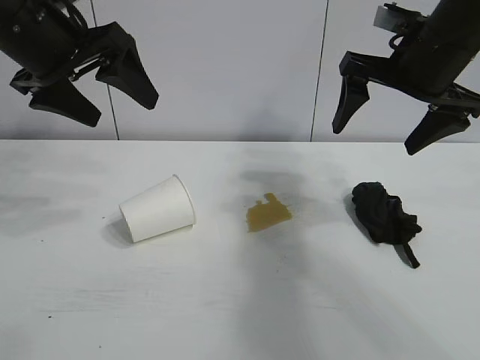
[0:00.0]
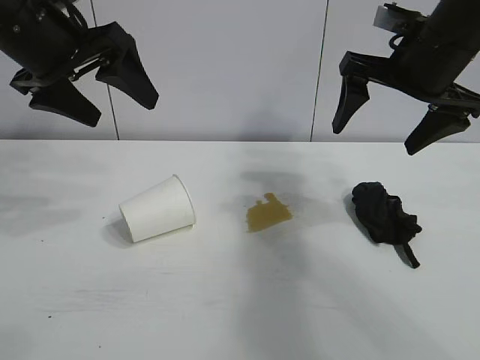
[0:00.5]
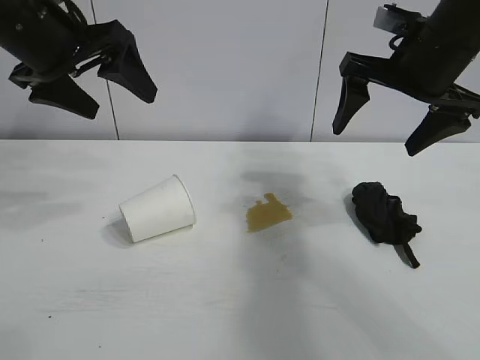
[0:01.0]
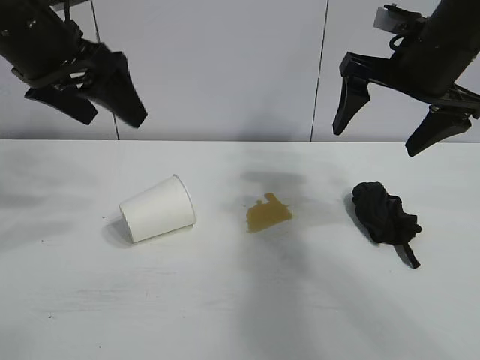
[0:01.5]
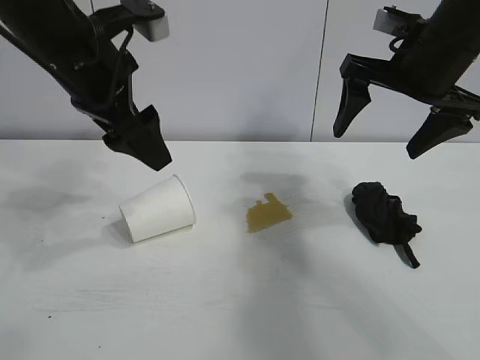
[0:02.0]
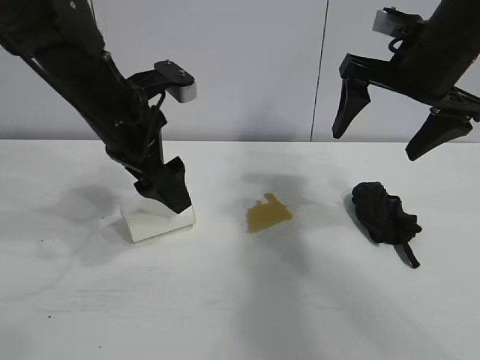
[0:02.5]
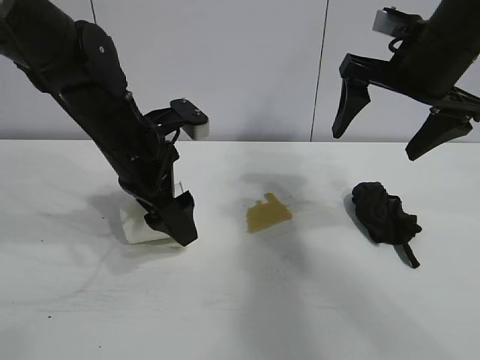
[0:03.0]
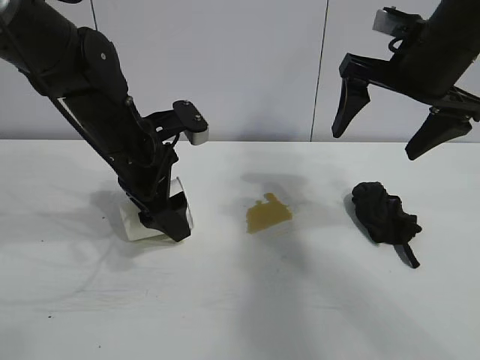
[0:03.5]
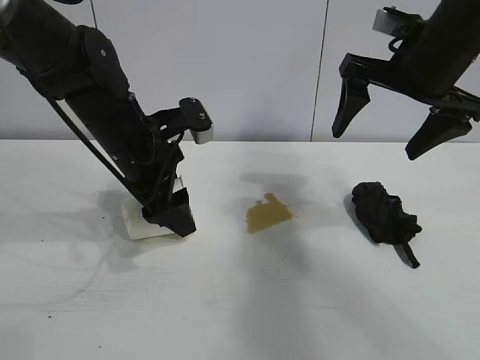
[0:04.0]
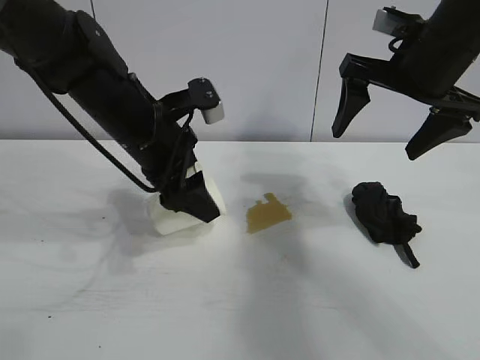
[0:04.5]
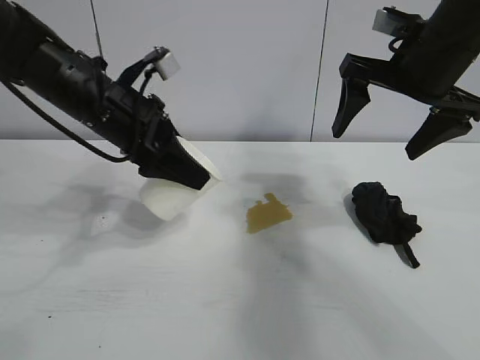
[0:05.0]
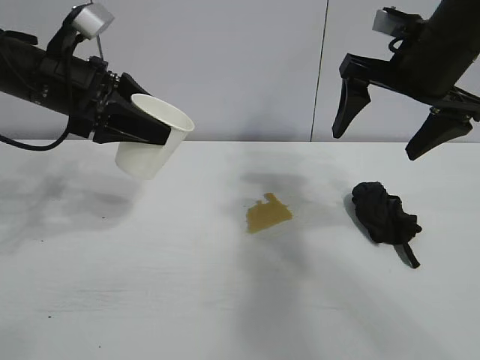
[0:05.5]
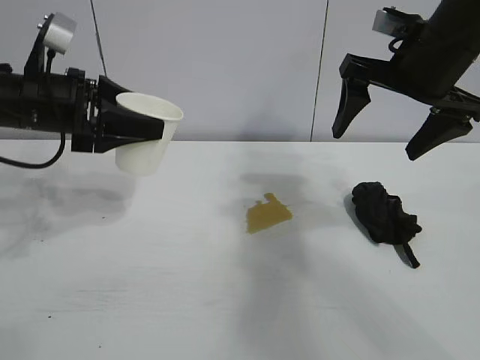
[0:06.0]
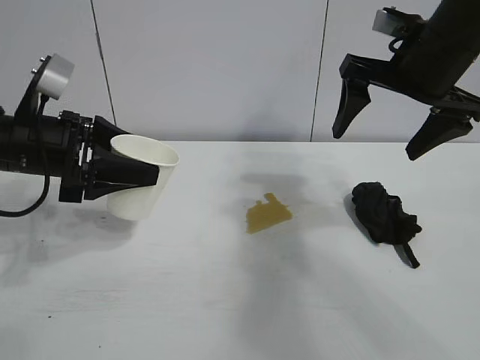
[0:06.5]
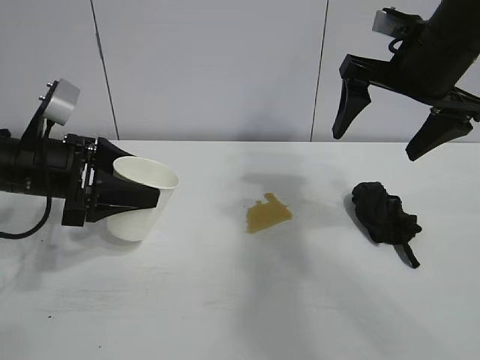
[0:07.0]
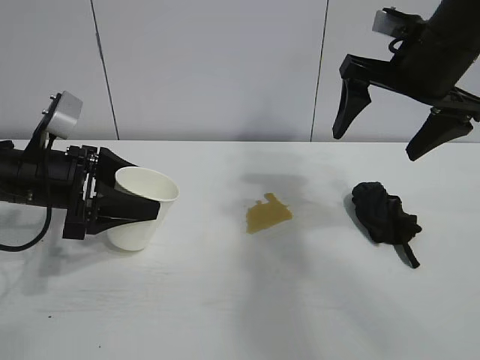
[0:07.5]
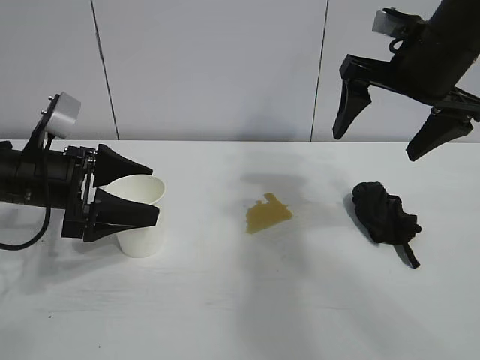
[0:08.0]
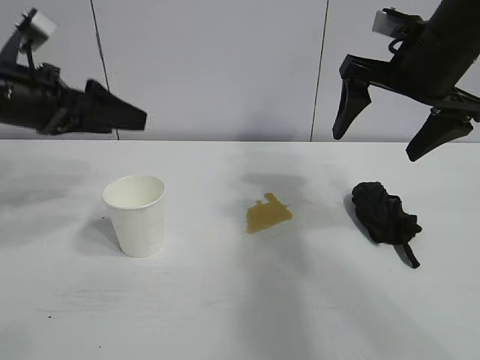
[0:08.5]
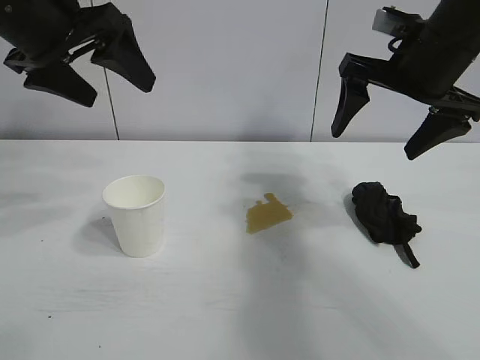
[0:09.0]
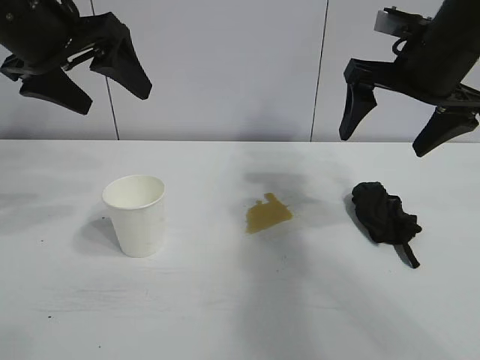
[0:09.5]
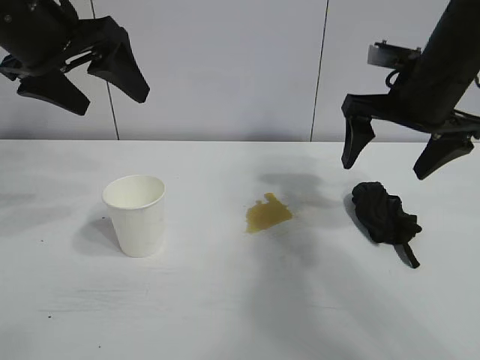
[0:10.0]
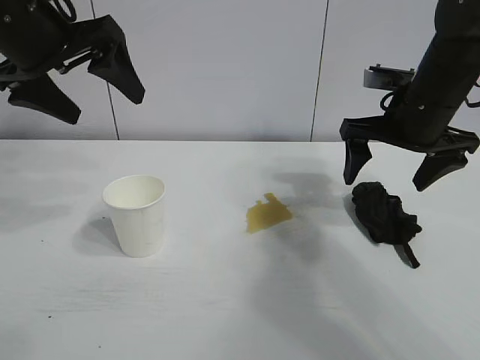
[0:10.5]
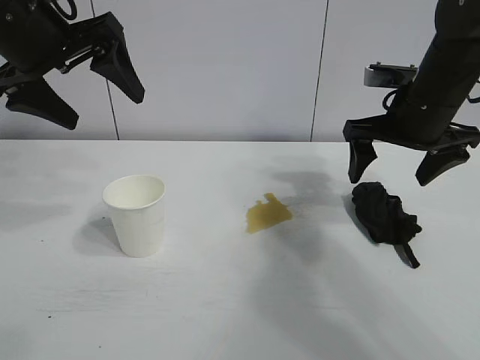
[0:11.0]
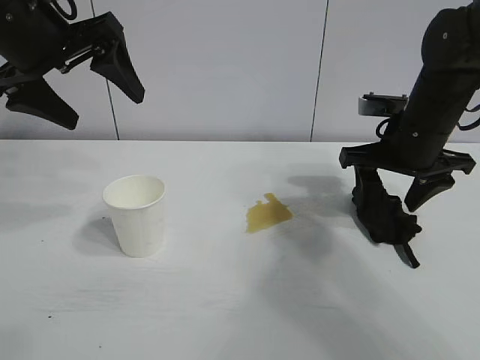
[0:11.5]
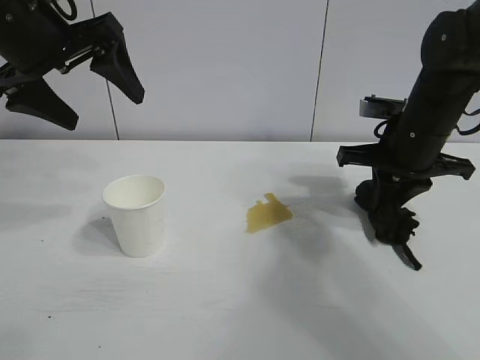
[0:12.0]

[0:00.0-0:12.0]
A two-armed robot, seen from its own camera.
Task of the whole recording: the left gripper pick up the fallen cup and place it upright, the right gripper grasp the black rag and wipe the stain on the table, the right gripper put the black rag back in its original position.
Step, 0:01.0 to 0:03.0: Grasp the paper cup with left gripper.
Step, 0:04.0 to 0:07.5: Stand the paper cup upright with left gripper.
Step, 0:08.0 to 0:11.5: Grasp the rag with right gripper.

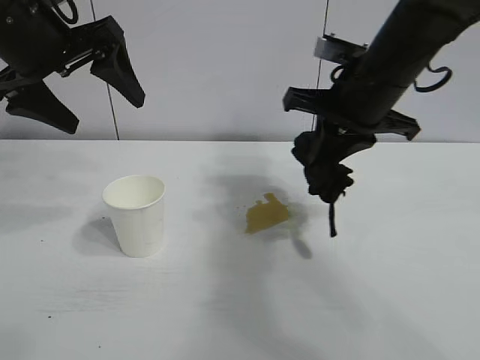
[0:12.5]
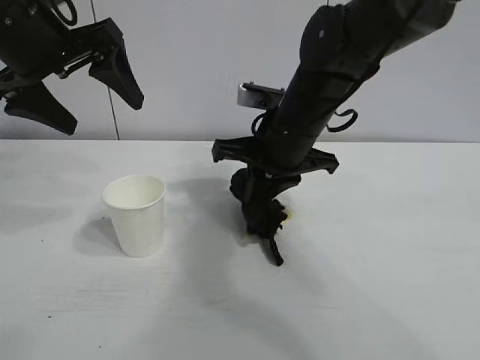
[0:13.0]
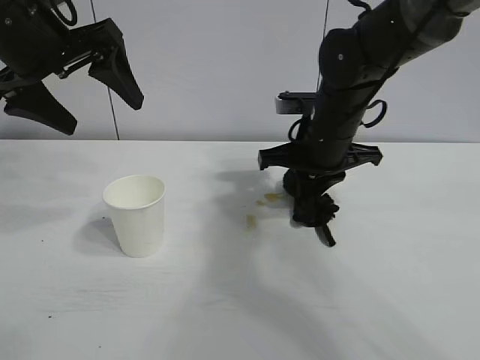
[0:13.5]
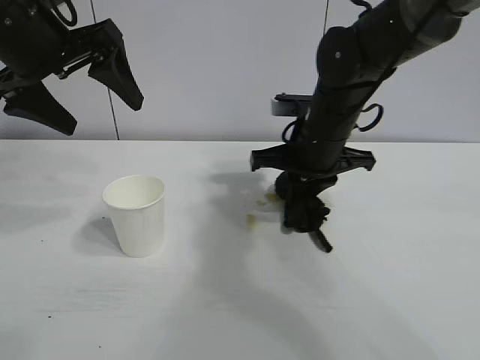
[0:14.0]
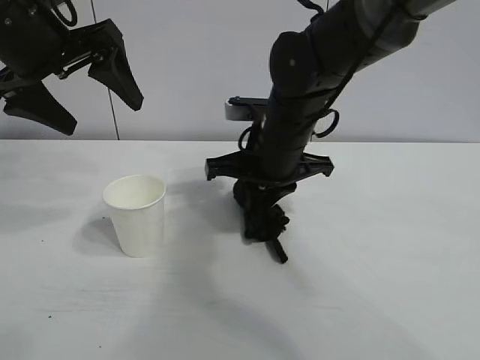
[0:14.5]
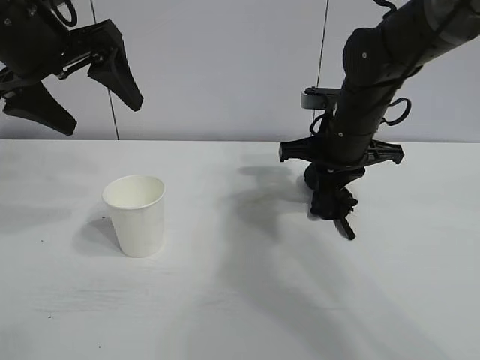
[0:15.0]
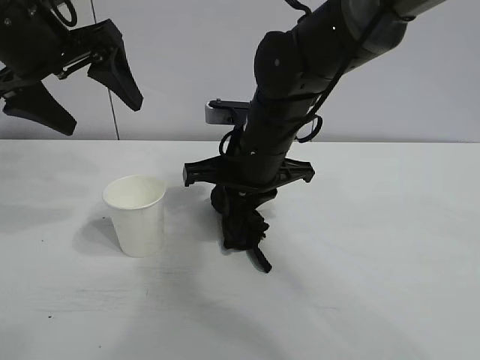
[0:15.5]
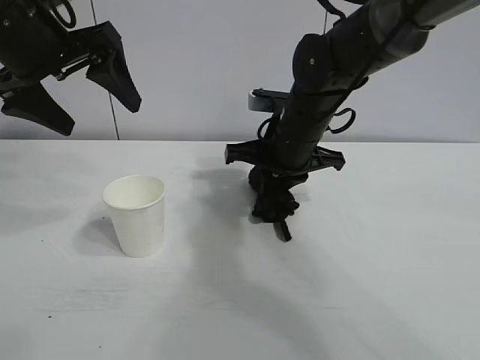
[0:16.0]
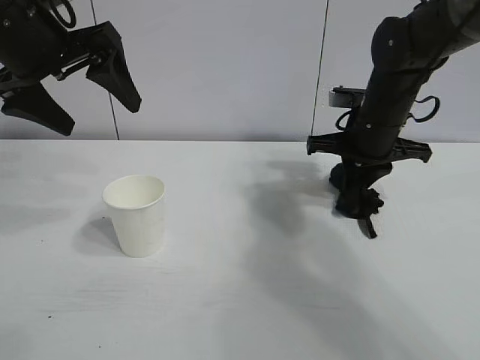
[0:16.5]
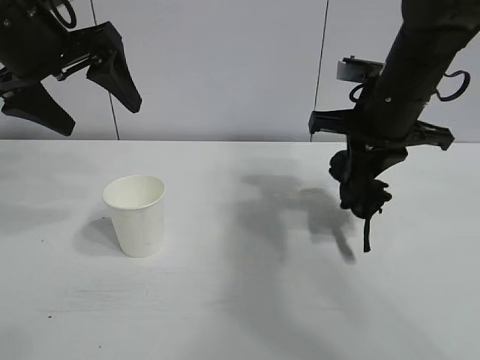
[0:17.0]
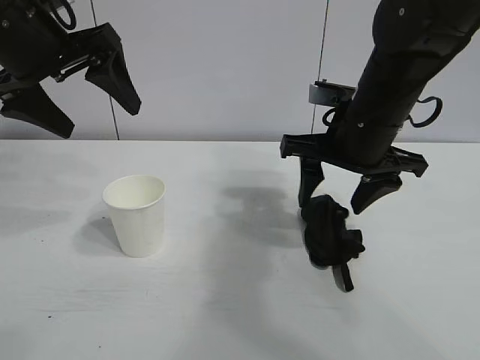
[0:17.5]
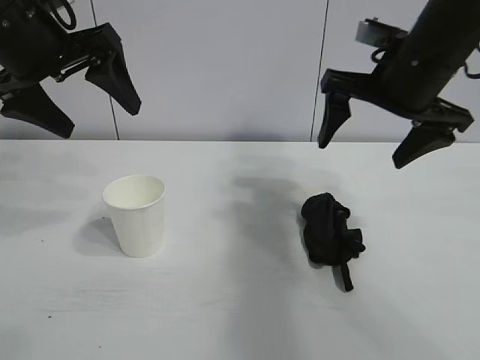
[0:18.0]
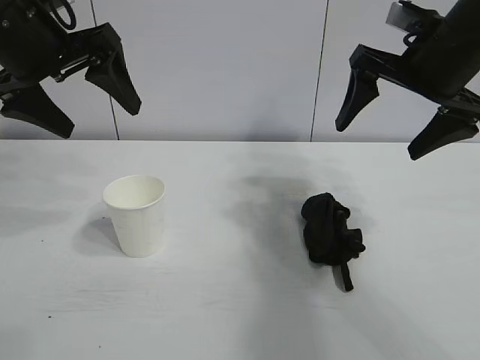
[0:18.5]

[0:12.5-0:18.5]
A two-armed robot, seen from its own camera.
Task of the whole recording: the left gripper pick up the fallen cup and place it upright, the right gripper grasp the black rag and wipe the stain on the table, the right gripper put the black rag back in its original position.
Step, 0:12.5 to 0:16.5: Wipe the stains off the table with the rag with right gripper.
Step, 0:17.0 to 0:17.5: Place the rag on the table with right gripper.

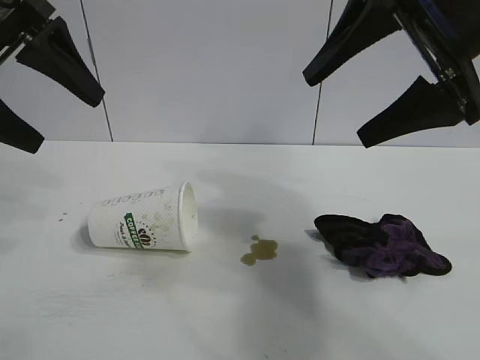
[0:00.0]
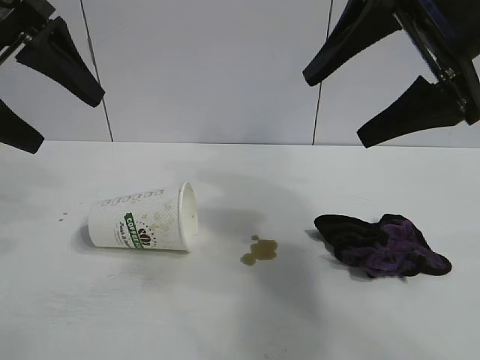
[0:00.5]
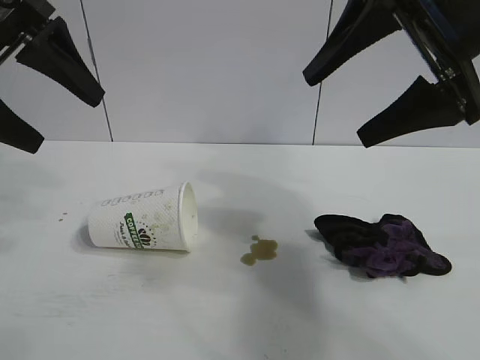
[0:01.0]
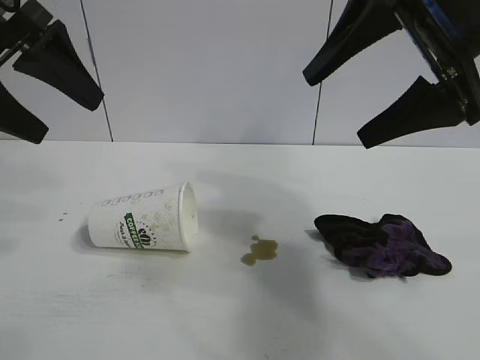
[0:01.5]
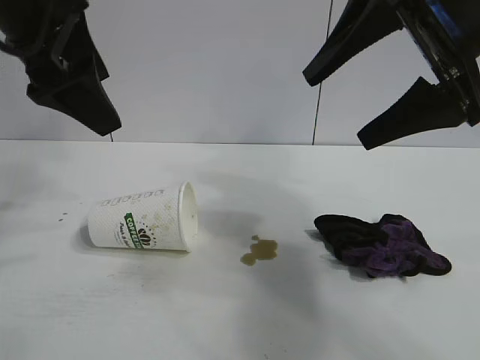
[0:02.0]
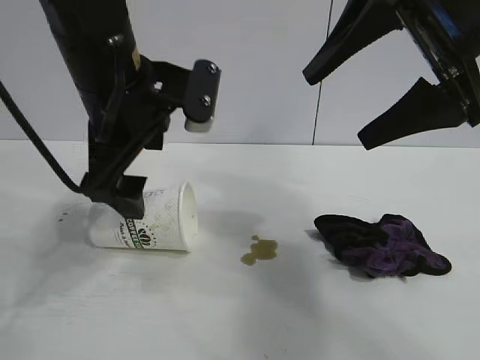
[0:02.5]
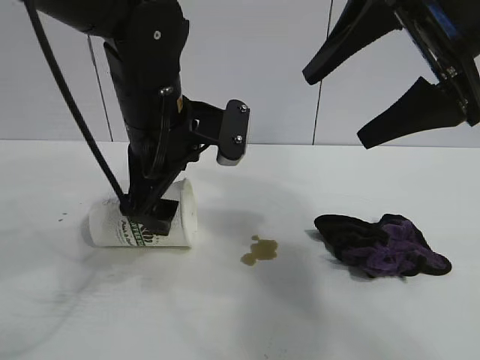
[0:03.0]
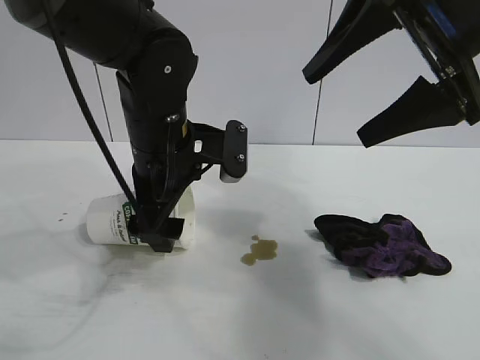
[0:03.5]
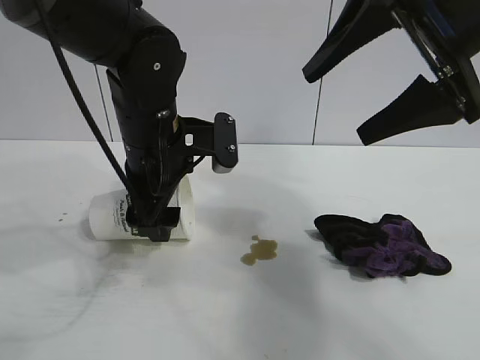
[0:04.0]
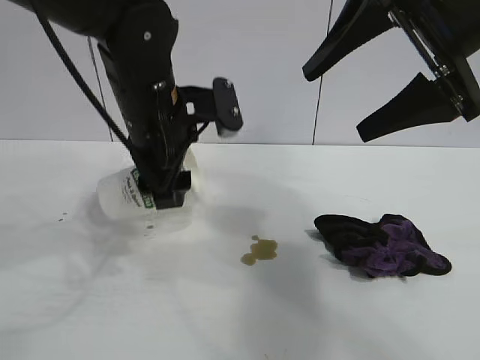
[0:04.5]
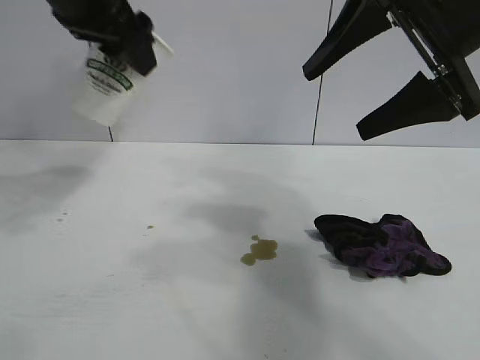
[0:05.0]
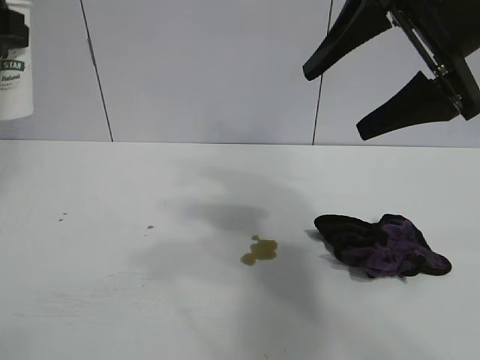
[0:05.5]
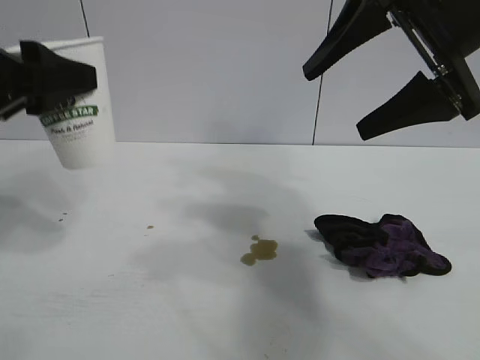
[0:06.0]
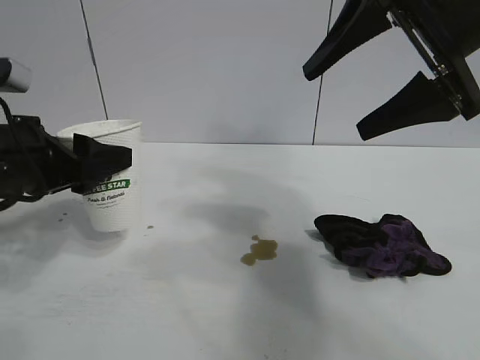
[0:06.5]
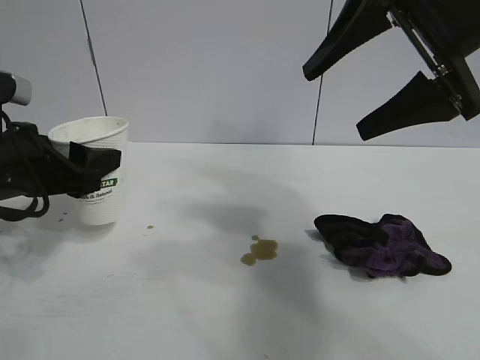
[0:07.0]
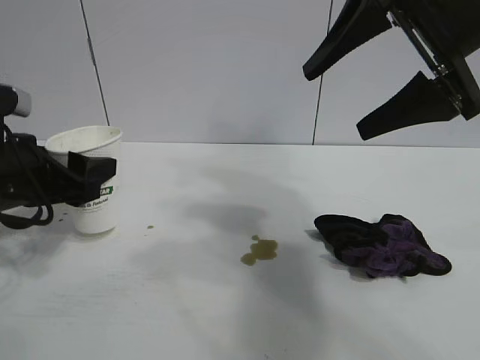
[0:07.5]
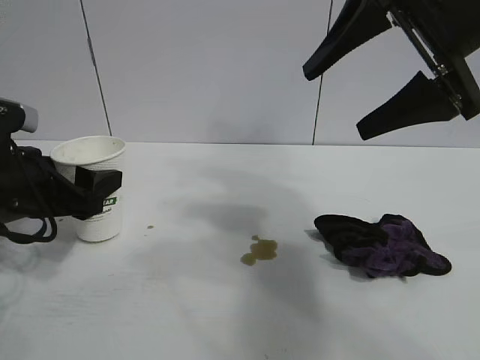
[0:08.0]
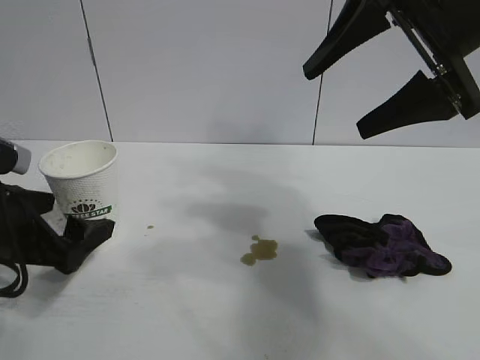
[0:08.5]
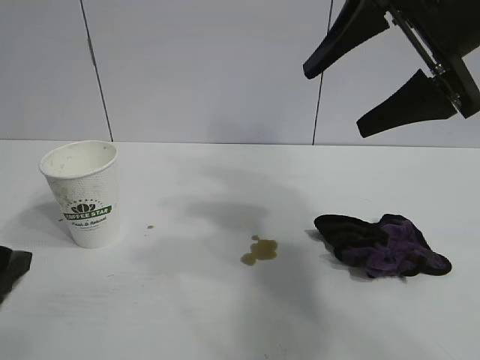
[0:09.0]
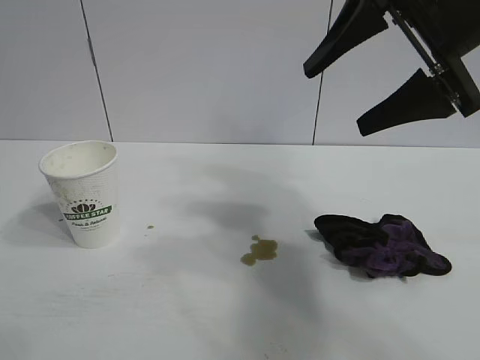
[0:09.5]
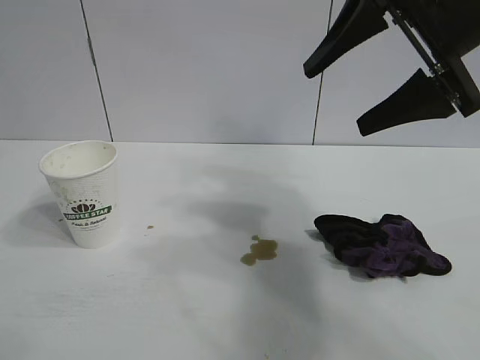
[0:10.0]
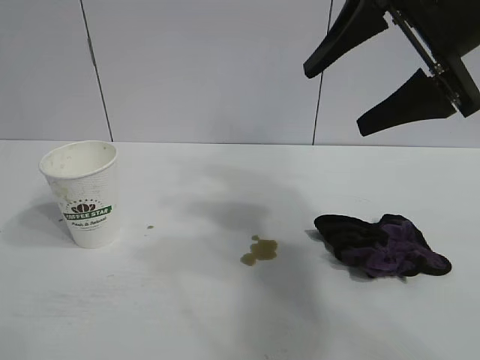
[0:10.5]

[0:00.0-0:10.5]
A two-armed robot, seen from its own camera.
Task of the whole recording: the left gripper pick up the fallen cup and place it upright, the right gripper grasp the black rag and wipe the stain on the table, the right gripper put the black rag back in its original position.
Step, 0:01.5 to 0:04.0: Grasp the paper cup with left gripper.
Step, 0:04.5 to 0:08.0: Stand the paper cup upright with left gripper.
